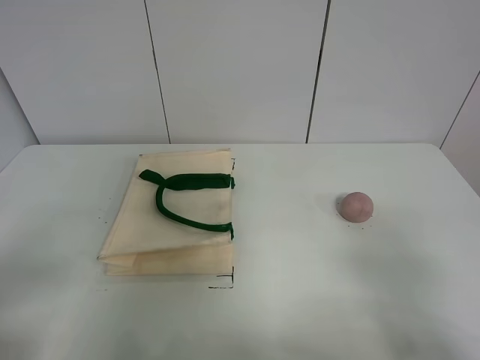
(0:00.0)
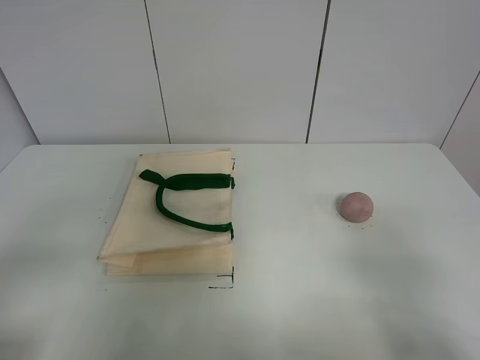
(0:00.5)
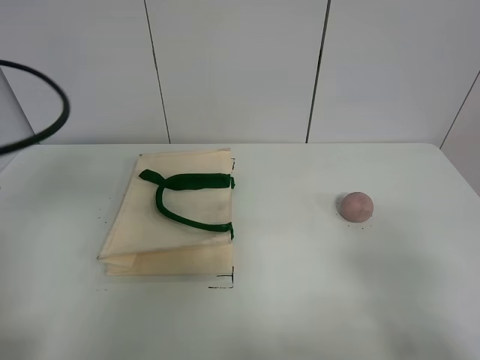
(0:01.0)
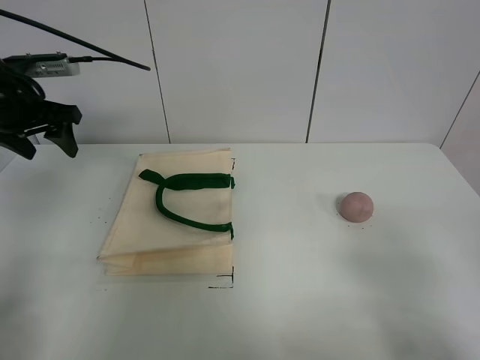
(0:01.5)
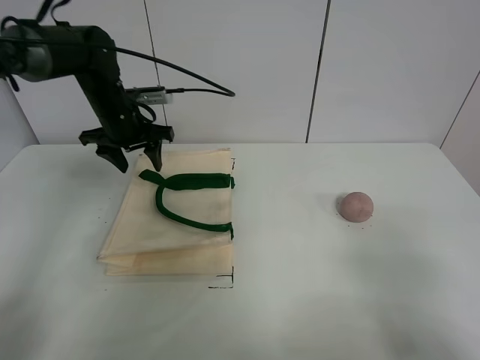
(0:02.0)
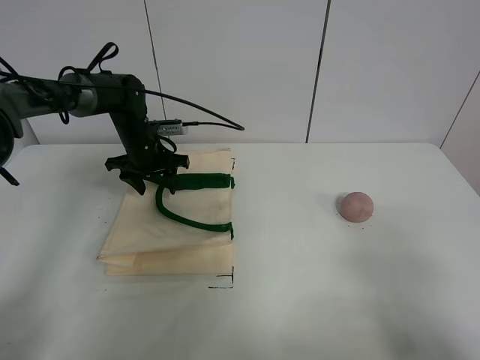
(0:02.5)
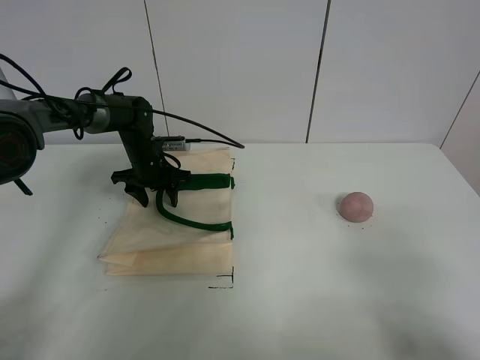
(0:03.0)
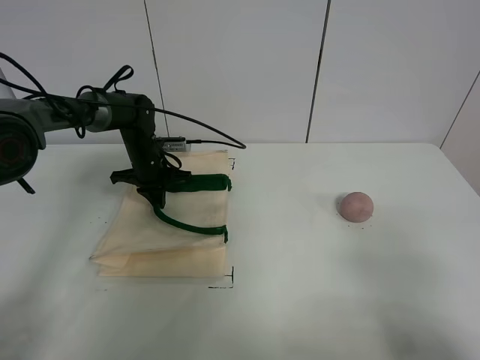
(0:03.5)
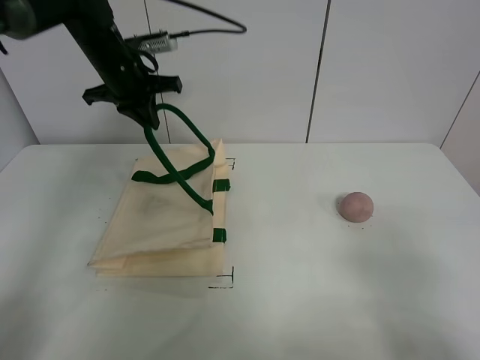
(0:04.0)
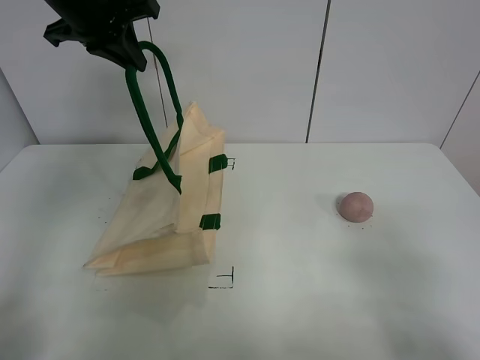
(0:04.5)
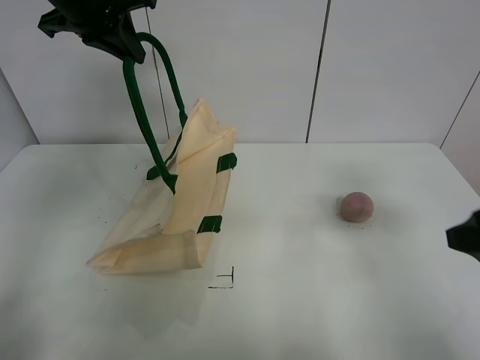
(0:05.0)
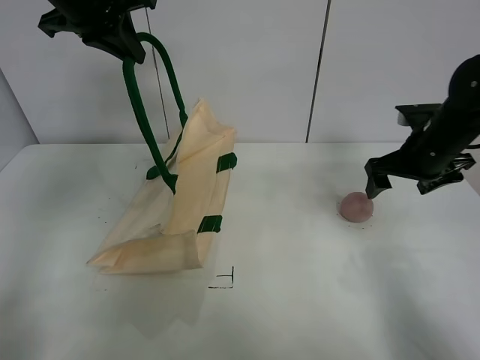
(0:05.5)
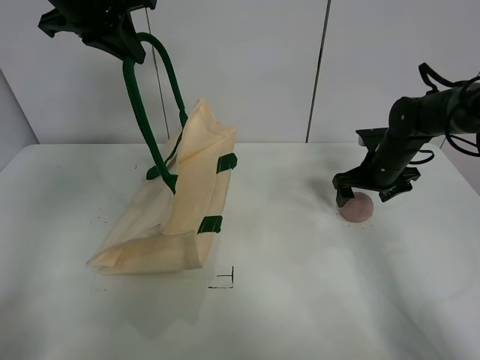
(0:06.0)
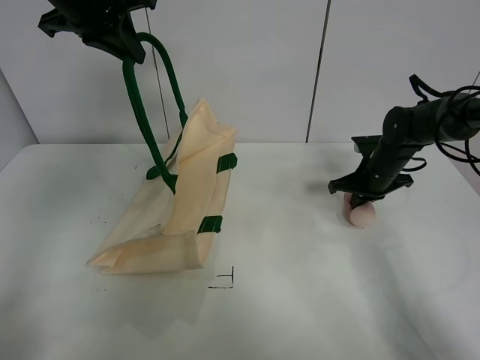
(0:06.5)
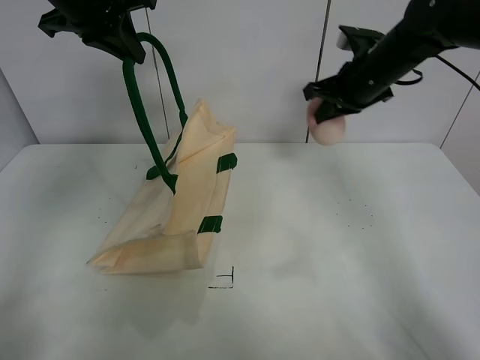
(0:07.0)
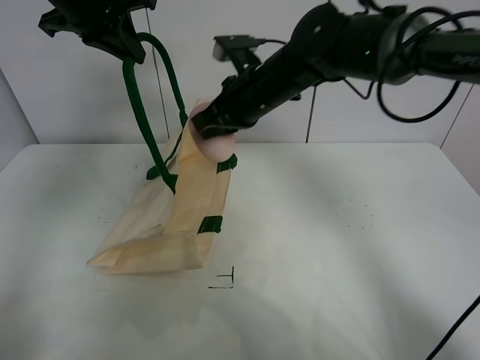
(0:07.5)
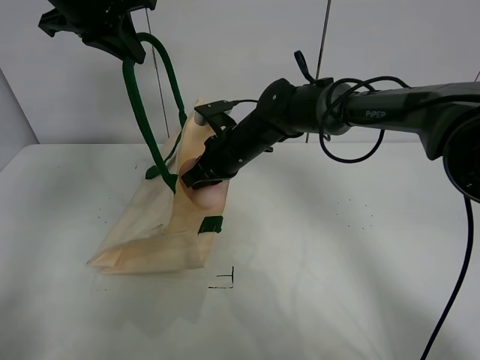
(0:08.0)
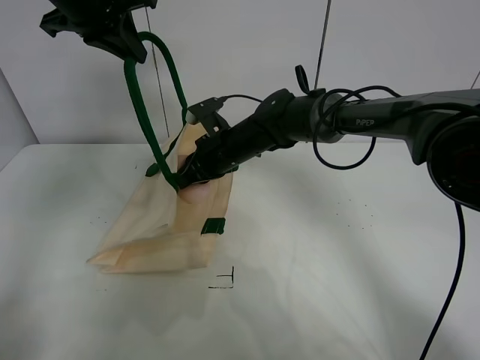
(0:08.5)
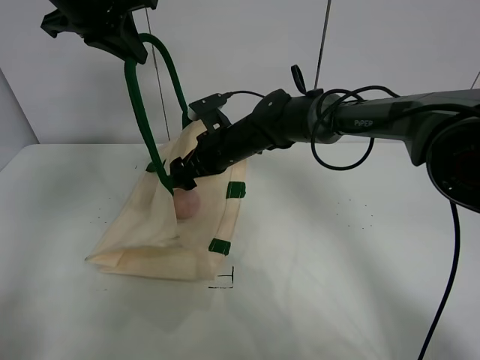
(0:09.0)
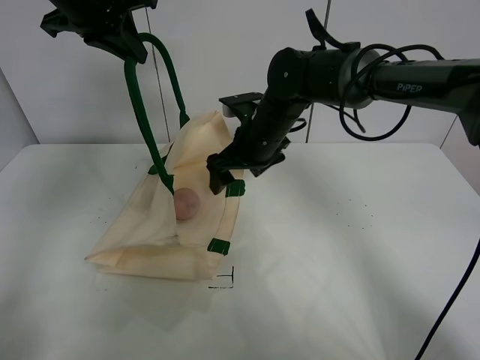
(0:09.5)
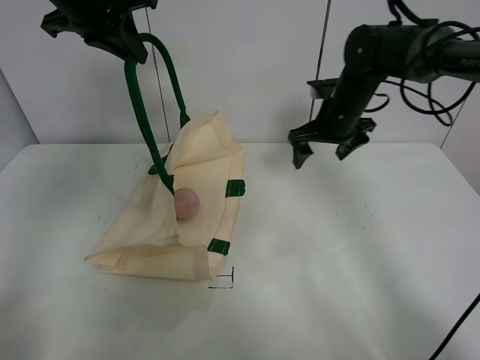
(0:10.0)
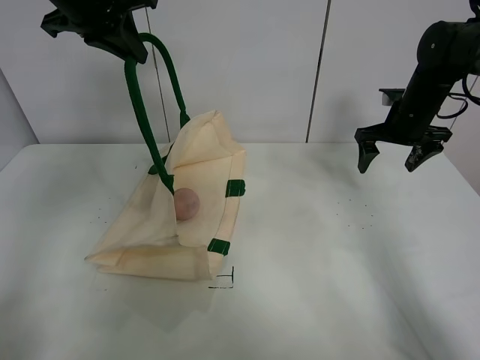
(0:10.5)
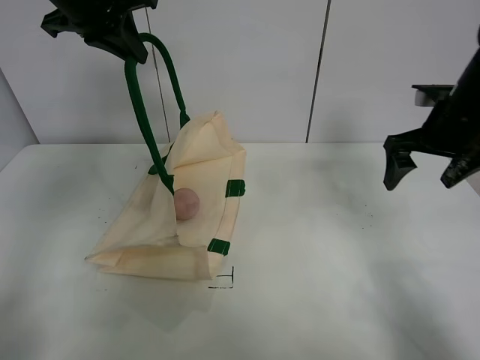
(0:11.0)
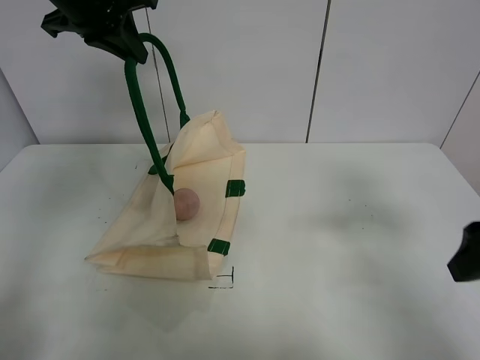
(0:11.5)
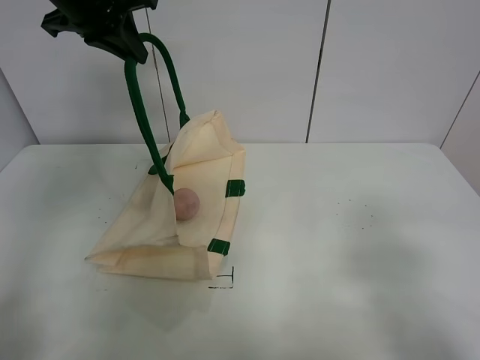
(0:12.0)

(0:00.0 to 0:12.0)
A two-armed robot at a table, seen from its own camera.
Task of the whole recording: open the white linen bag and put the peach in the bag.
Step, 0:00.0 - 0:04.5: Lift the handbag with left gripper.
Step, 0:05.0 - 0:06.0: Grasp the peach with right gripper.
Step, 0:06.5 - 0:09.0: Place the peach in the handbag with right gripper.
0:00.0 - 0:02.0: The left gripper goes approximately 40 cm forward.
0:02.0 - 0:04.0: The left gripper is displaced upward by some 10 cm, and closes its fingers.
0:04.0 - 0:06.0: The left gripper goes about 10 cm upward and backward, while the right gripper shifts roughly 40 cm forward.
0:06.0 - 0:08.0: The right gripper heads to the left, covering roughly 25 cm, and closes up.
0:08.0 - 0:10.0: The right gripper travels to the right by about 20 cm, and opens its fingers.
0:10.0 - 0:12.0: The right gripper shifts about 40 cm backward.

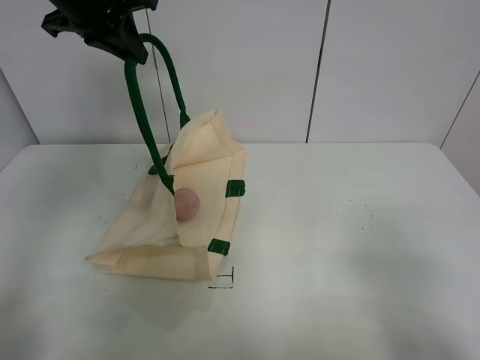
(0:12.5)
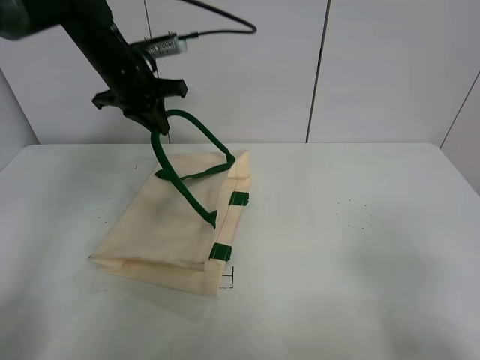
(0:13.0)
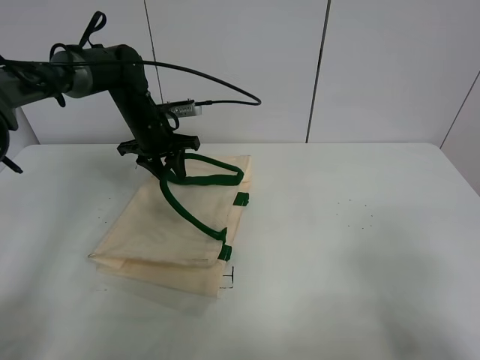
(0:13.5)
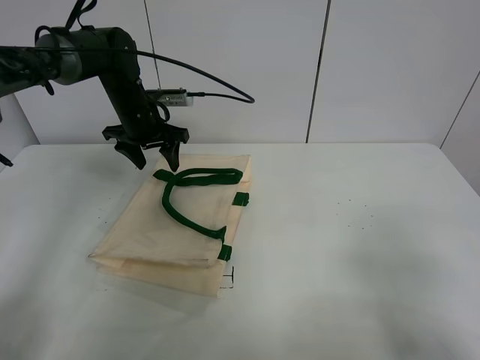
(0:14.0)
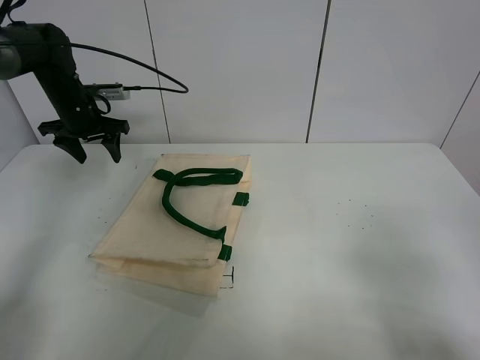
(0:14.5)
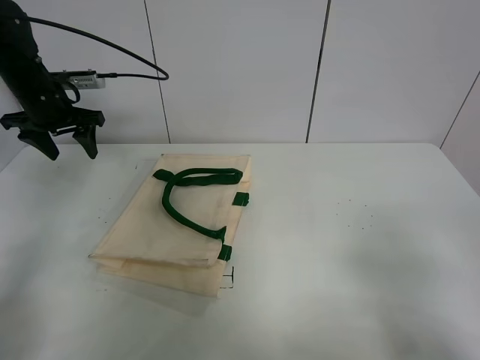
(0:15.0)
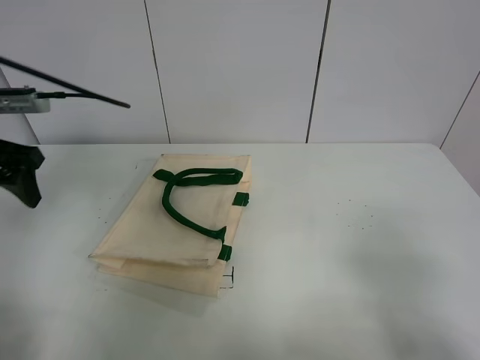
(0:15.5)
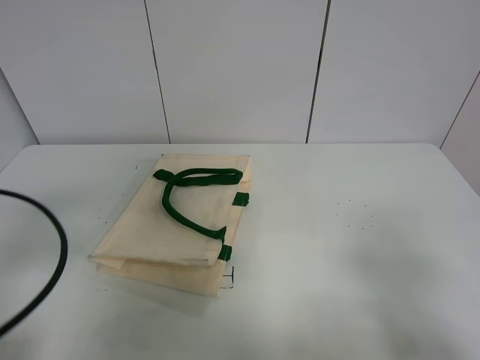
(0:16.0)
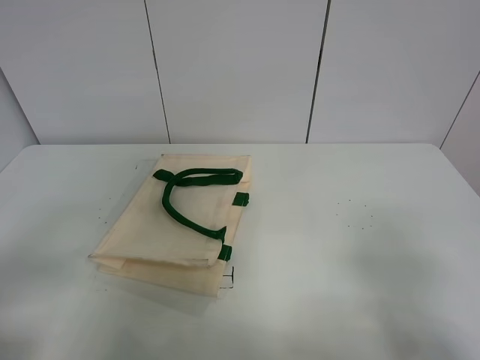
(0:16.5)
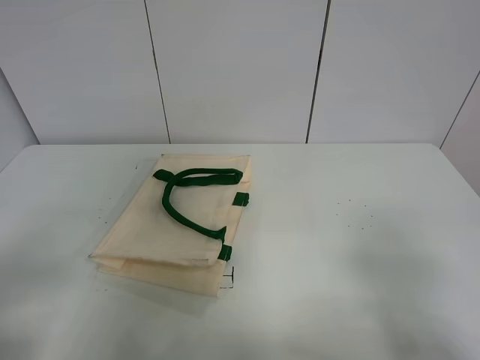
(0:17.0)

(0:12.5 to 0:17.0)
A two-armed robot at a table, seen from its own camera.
Task of the whole recording: open the white linen bag and put the peach in the bag.
0:12.5 - 0:14.5: The left gripper is displaced downward, to the left and forward by roughly 25 cm, and opens its fingers.
0:14.5 - 0:17.0: The left gripper shifts approximately 50 cm backward.

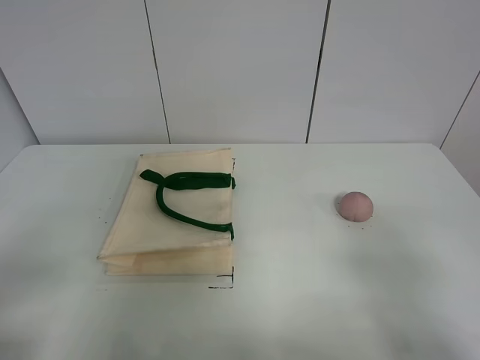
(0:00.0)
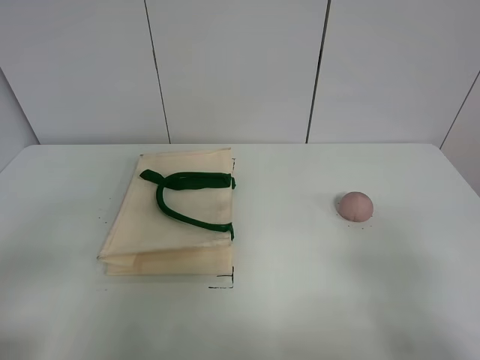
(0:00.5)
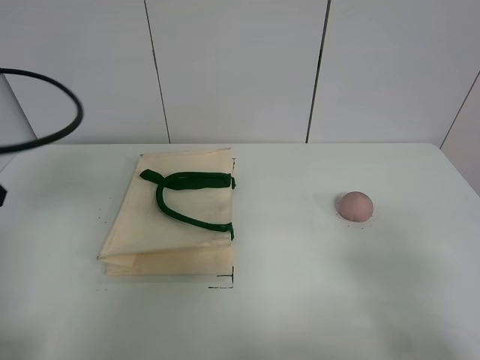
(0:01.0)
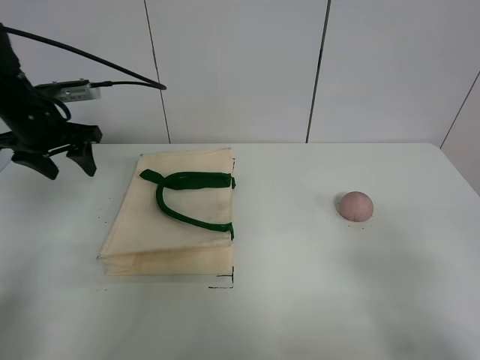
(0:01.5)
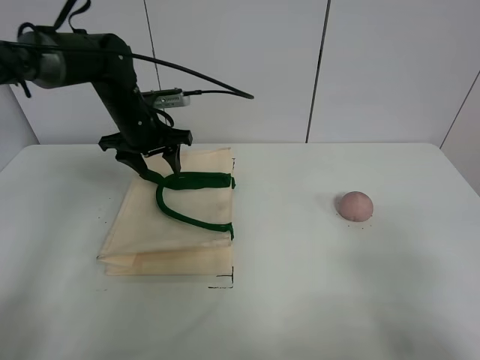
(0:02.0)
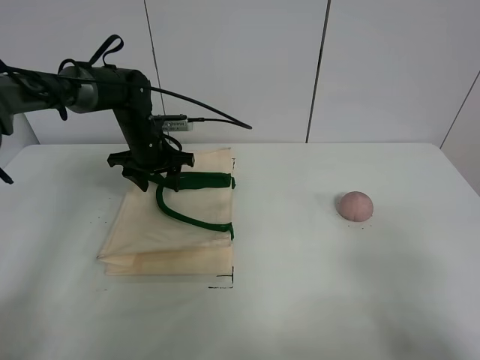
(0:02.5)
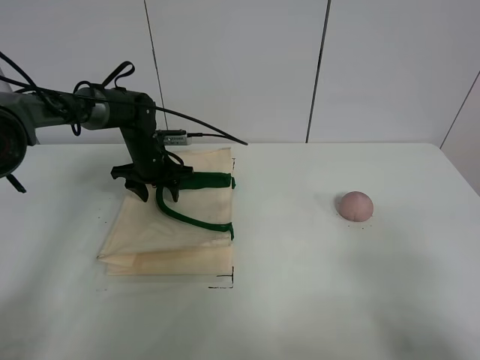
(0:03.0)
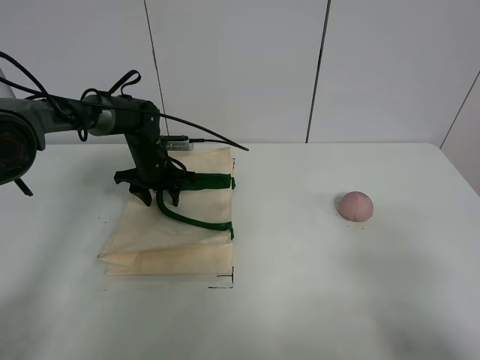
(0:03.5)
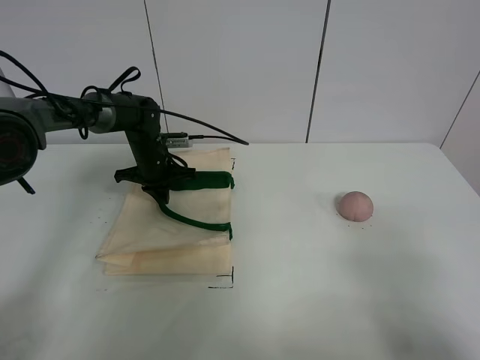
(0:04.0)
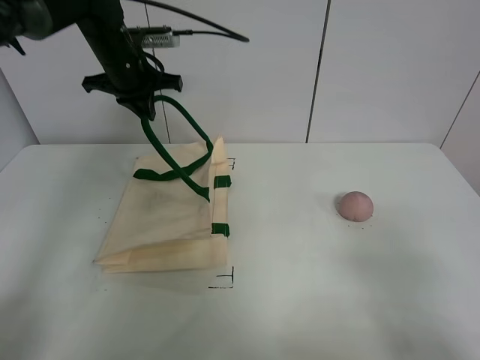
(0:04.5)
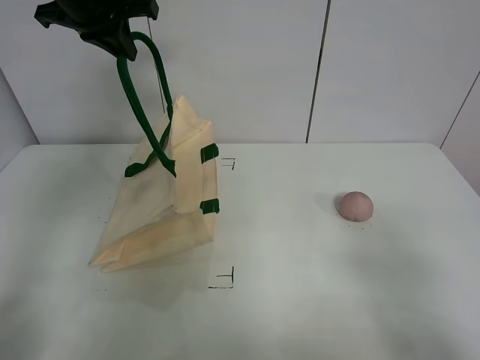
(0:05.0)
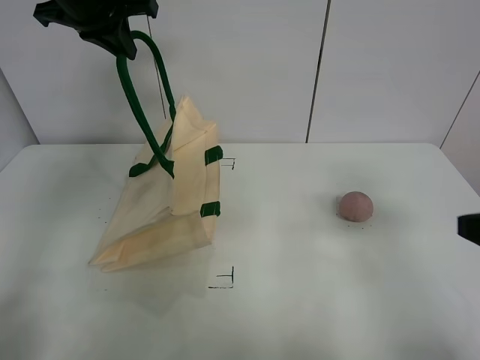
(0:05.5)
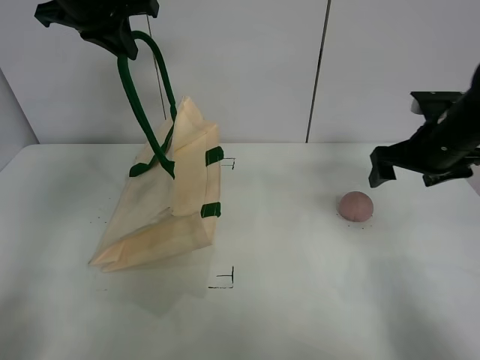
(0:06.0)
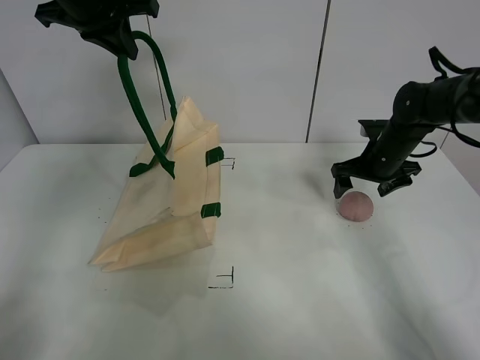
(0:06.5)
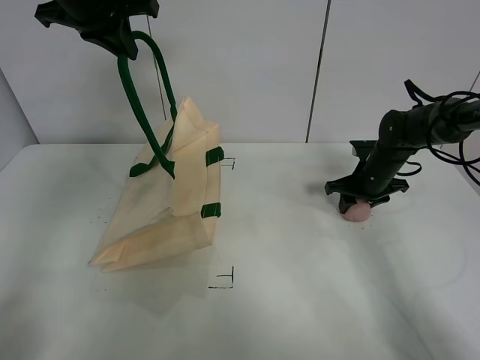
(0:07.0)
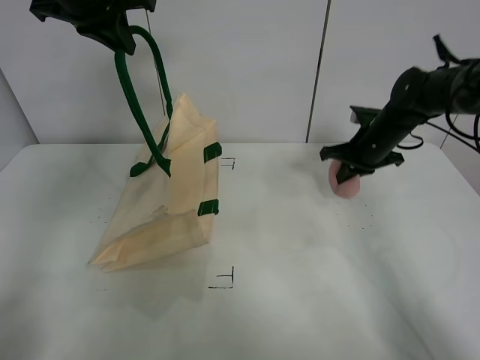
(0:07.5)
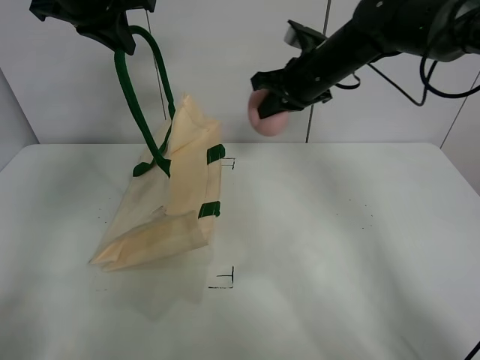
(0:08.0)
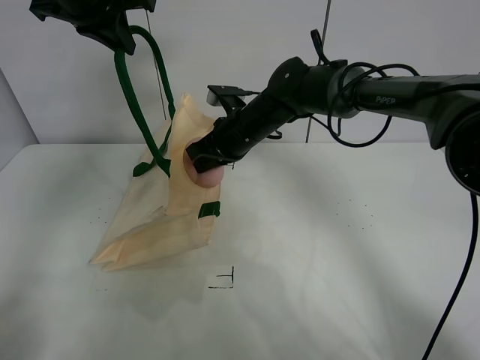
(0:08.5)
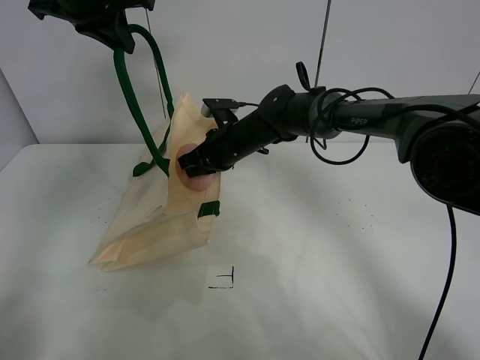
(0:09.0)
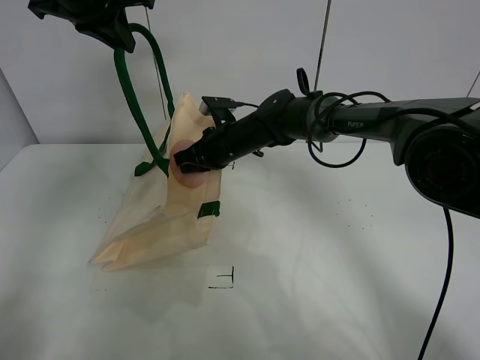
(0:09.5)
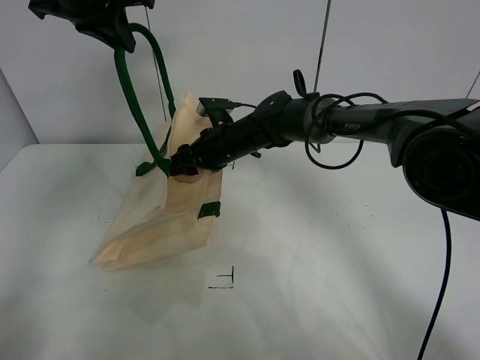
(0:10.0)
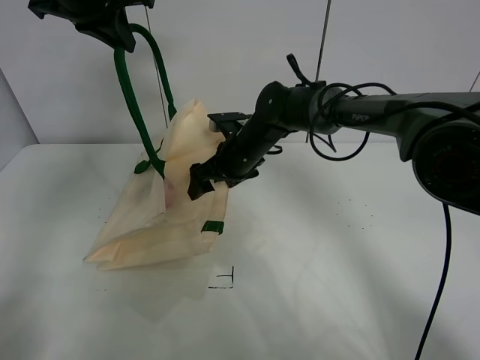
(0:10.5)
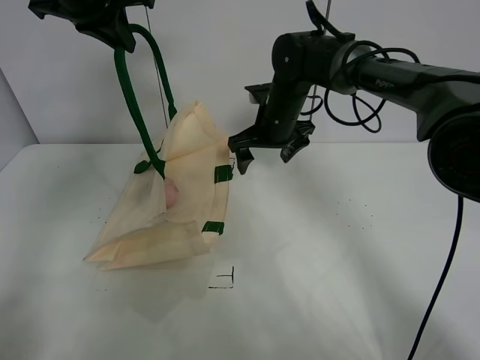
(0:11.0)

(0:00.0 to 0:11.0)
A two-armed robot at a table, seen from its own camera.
Task of the whole recording: open the white linen bag and put the peach in the bag.
Step, 0:00.0 - 0:05.0: Lift the handbag with left gripper.
Step, 0:05.5 - 0:07.0: Grasp the peach with right gripper.
Step, 0:07.5 - 0:10.0: Place the peach in the handbag with right gripper.
0:00.0 - 0:02.0: The left gripper goes roughly 40 cm forward.
0:02.0 - 0:03.5: The left gripper shifts approximately 10 cm downward.
0:03.5 - 0:05.5: The right gripper travels forward by about 15 cm. The left gripper goes approximately 30 cm upward, and closes its fingers.
0:05.5 - 0:07.5: The right gripper is displaced forward by approximately 30 cm, and closes its fingers.
0:07.5 - 0:09.0: The right gripper is displaced to the left by about 25 cm.
0:09.0 - 0:11.0: The right gripper shifts approximately 10 cm to the right and upward, and opens up.
